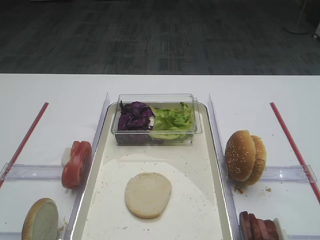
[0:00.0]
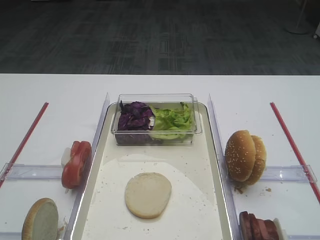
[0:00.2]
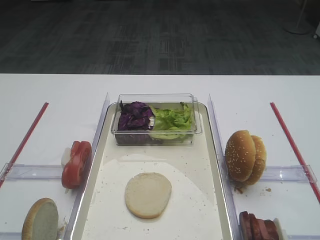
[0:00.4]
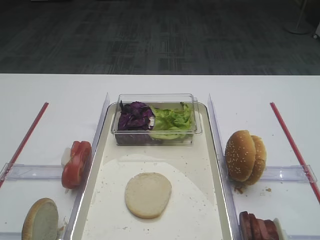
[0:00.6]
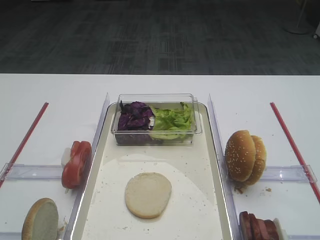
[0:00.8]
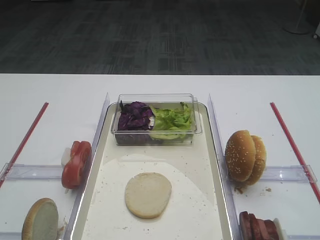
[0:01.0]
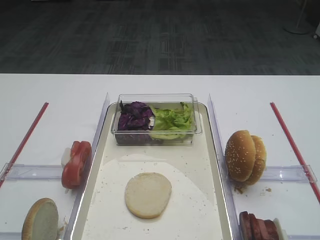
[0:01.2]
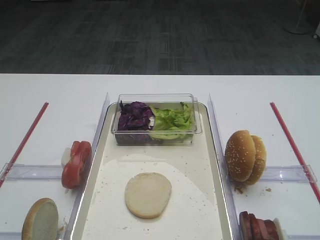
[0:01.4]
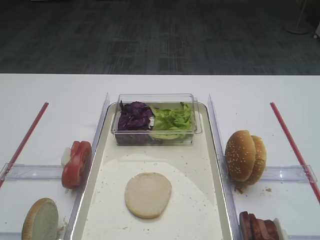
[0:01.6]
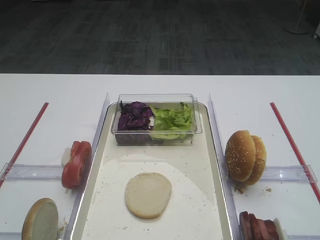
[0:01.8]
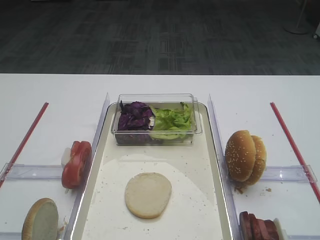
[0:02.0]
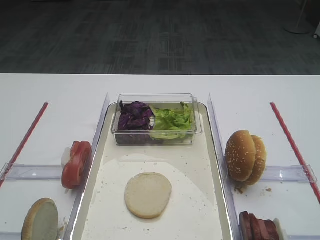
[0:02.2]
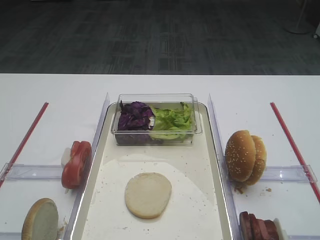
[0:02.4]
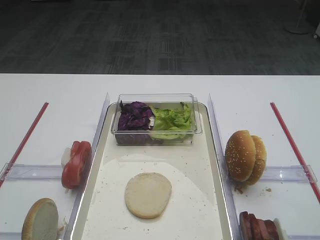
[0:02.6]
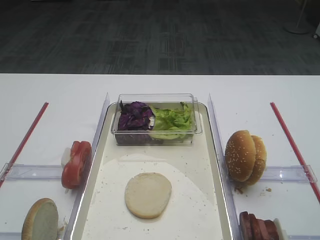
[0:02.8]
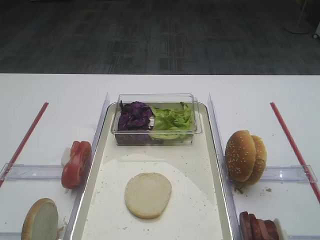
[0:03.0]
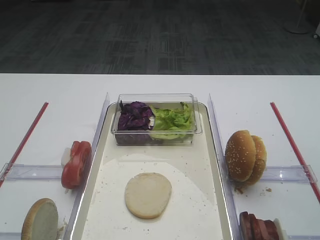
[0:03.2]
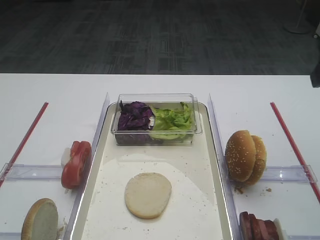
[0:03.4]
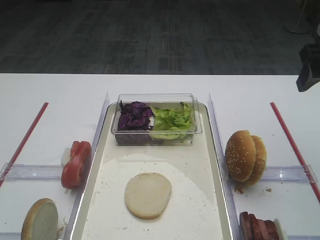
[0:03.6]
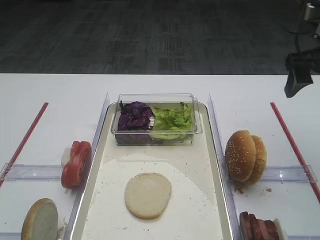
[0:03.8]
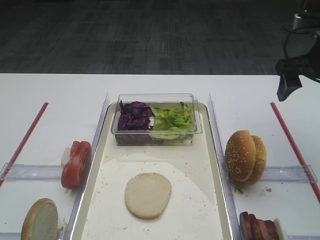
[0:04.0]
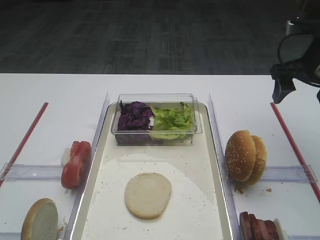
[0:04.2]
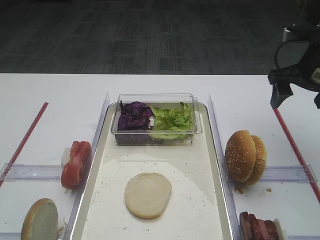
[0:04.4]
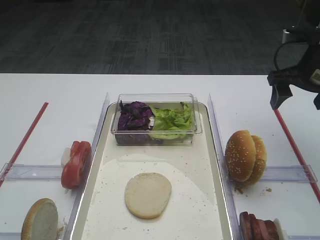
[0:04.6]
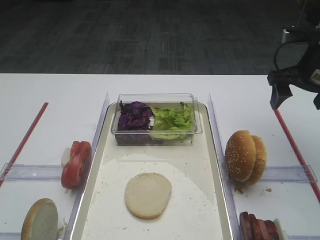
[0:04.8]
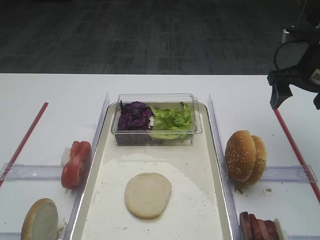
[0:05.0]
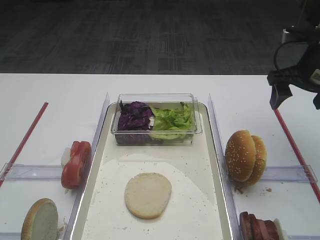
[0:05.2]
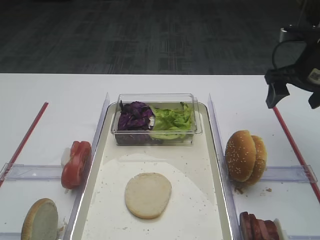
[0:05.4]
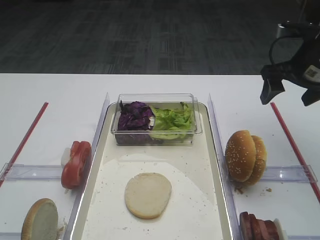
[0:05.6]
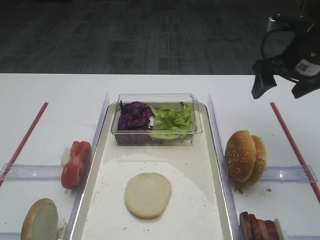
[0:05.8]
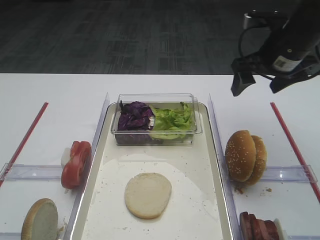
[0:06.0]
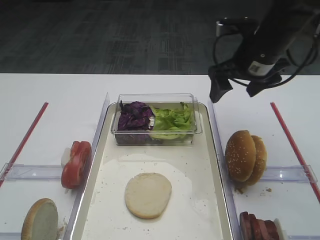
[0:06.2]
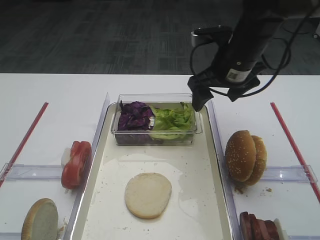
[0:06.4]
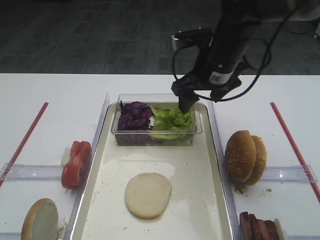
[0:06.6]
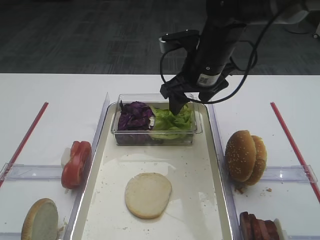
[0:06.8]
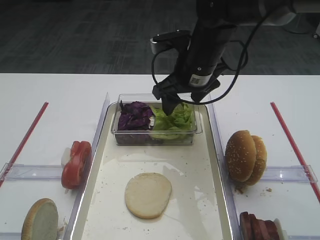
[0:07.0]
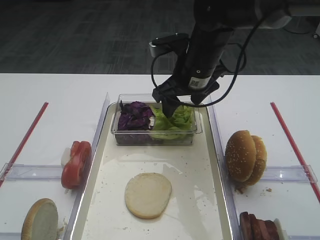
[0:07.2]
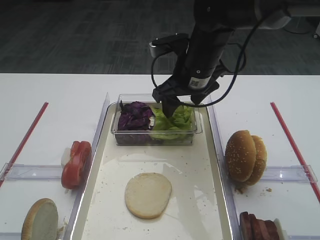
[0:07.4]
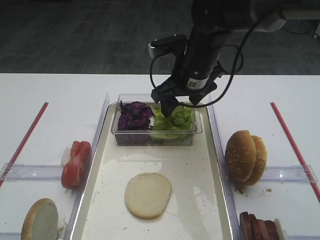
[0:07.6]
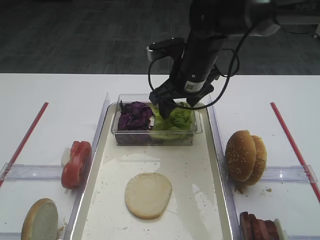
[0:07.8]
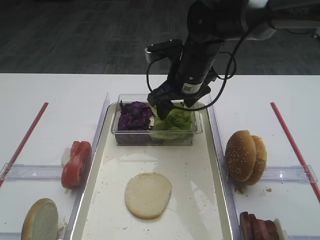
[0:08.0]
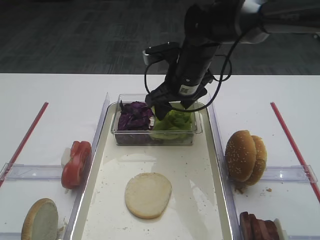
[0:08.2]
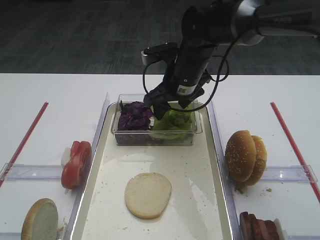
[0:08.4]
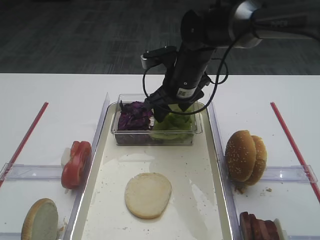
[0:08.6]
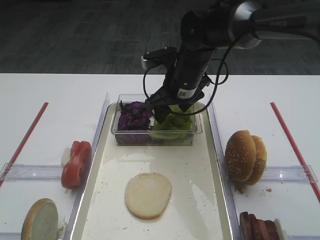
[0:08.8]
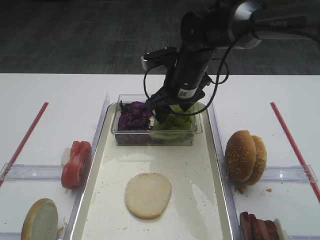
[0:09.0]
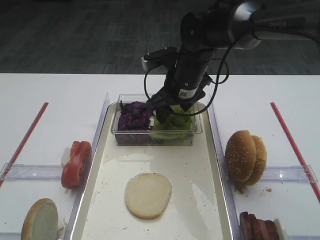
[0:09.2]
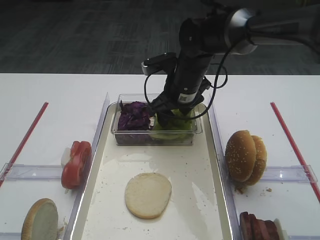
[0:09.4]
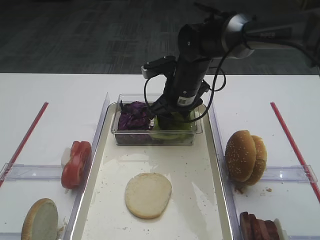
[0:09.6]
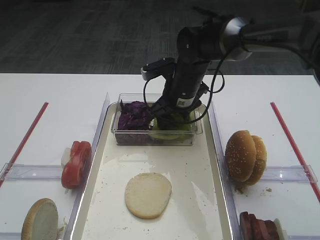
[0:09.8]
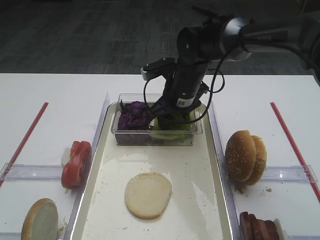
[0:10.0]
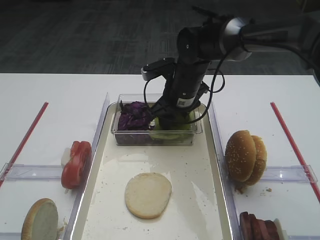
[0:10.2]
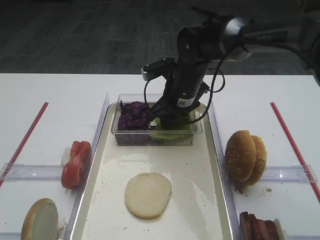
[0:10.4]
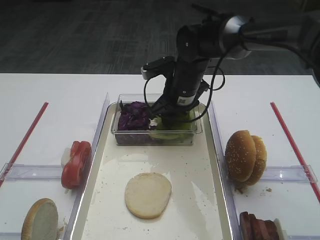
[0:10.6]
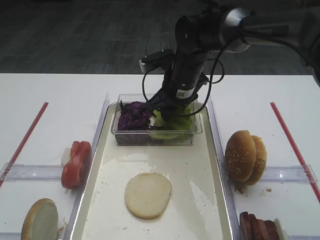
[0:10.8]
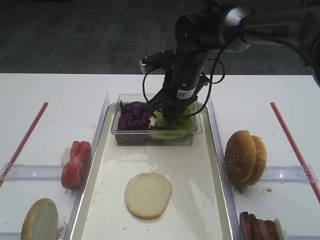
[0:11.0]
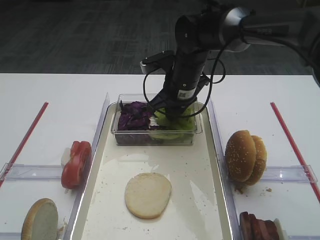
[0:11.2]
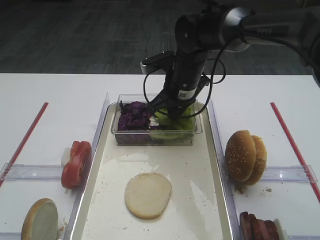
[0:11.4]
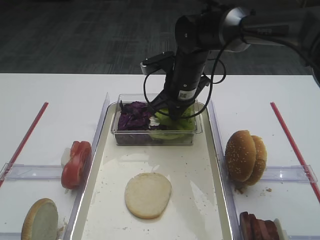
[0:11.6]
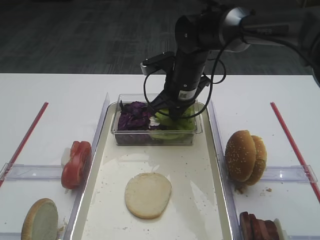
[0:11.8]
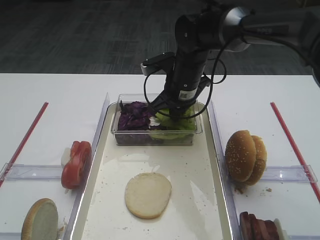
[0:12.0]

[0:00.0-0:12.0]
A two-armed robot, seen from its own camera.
0:03.0 to 0:04.4: The right gripper travels forward and downward by some 25 cm.
0:04.4 to 0:06.0: The right gripper shifts by approximately 5 cm.
0:06.0 to 0:07.6: The right gripper travels to the left by about 15 cm.
0:07.6 to 0:09.0: There are only small adjustments of the grippers.
0:09.0 to 0:10.4: There are only small adjustments of the grippers.
0:10.4 to 0:12.0: The right gripper closes its fingers.

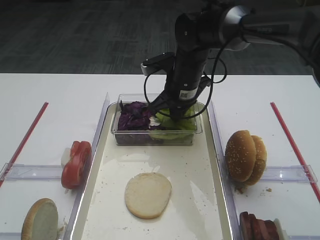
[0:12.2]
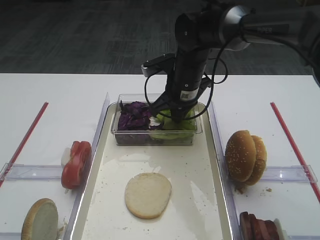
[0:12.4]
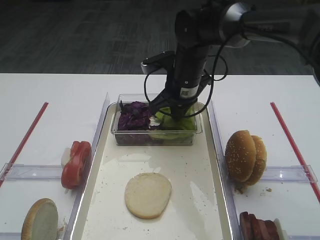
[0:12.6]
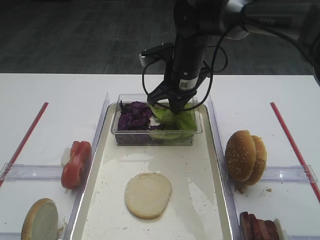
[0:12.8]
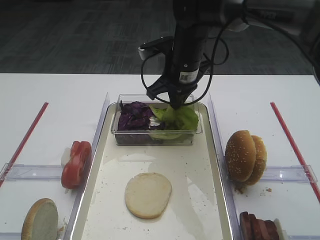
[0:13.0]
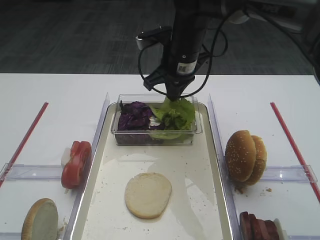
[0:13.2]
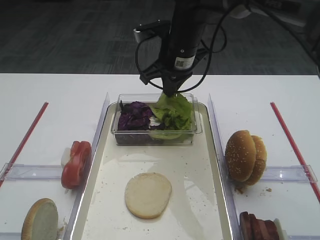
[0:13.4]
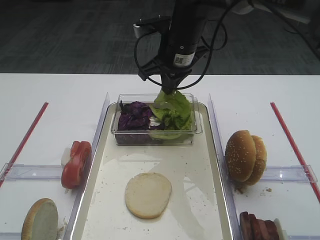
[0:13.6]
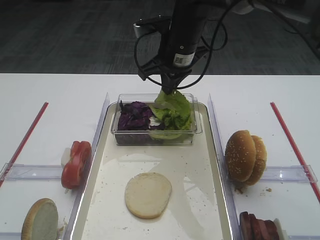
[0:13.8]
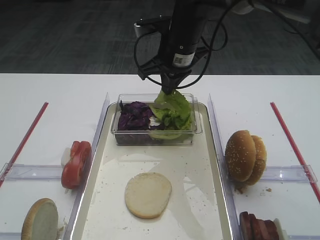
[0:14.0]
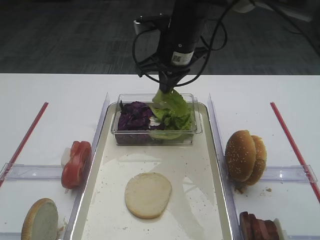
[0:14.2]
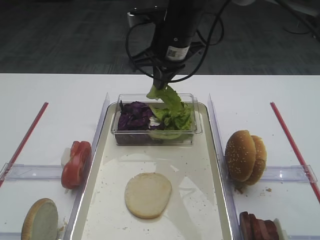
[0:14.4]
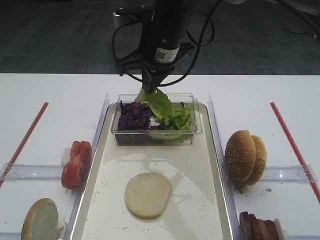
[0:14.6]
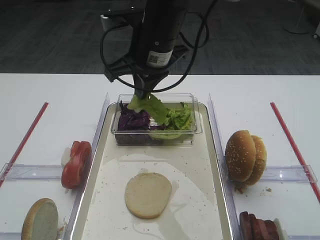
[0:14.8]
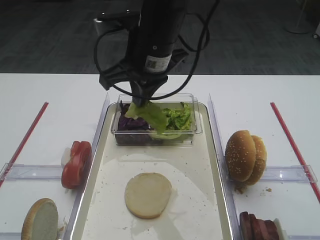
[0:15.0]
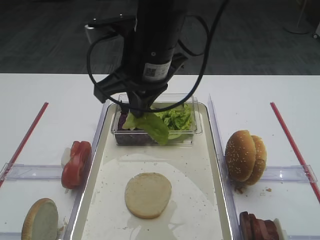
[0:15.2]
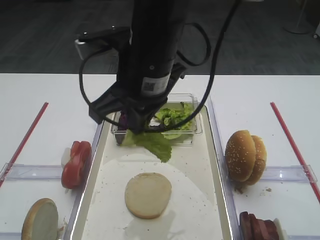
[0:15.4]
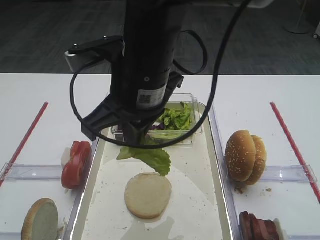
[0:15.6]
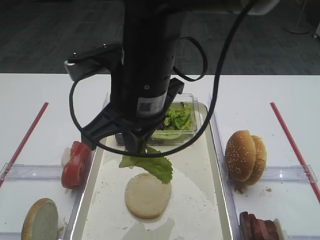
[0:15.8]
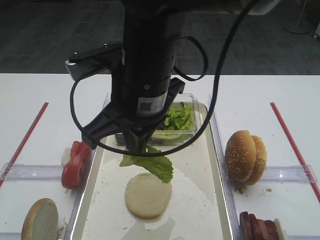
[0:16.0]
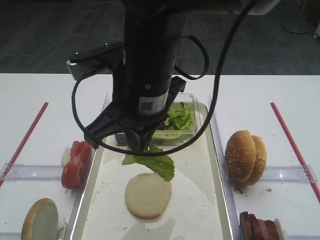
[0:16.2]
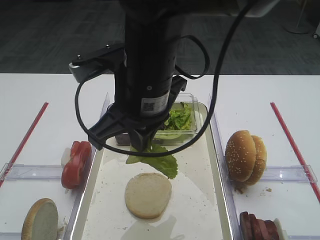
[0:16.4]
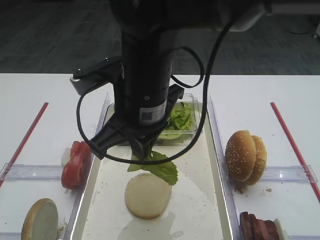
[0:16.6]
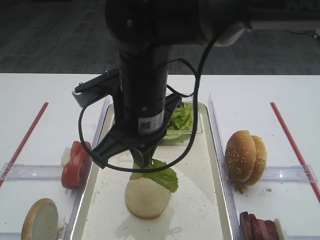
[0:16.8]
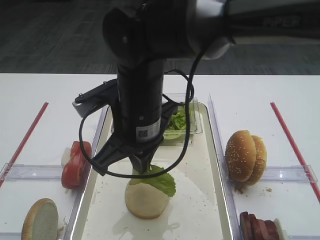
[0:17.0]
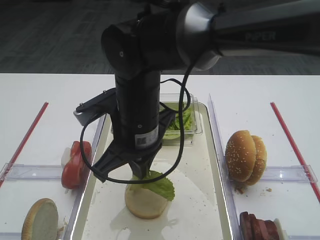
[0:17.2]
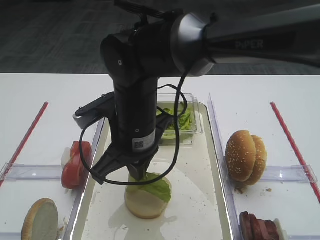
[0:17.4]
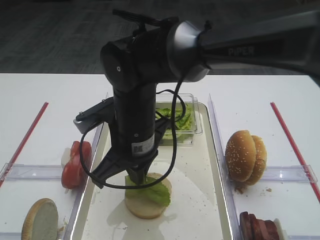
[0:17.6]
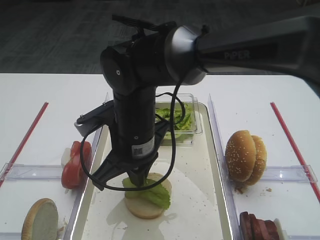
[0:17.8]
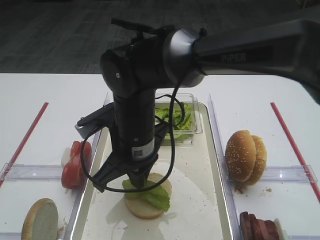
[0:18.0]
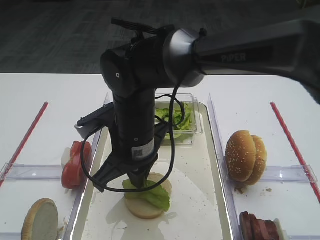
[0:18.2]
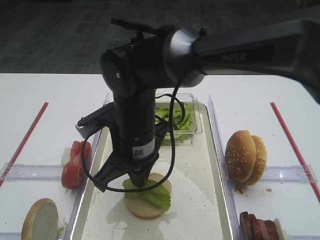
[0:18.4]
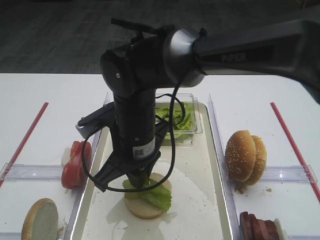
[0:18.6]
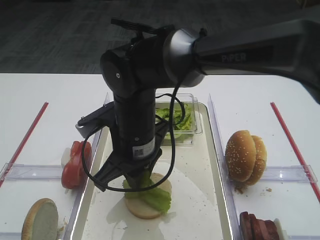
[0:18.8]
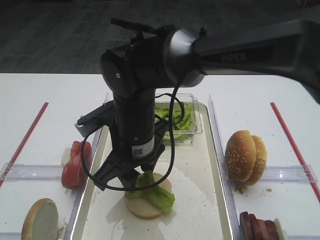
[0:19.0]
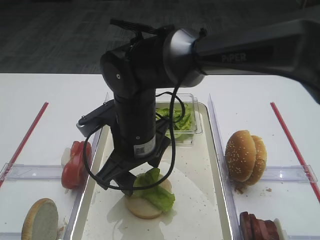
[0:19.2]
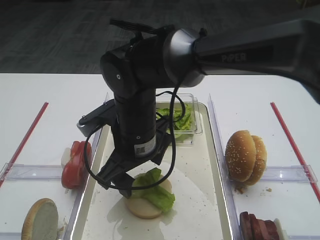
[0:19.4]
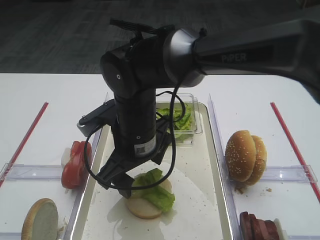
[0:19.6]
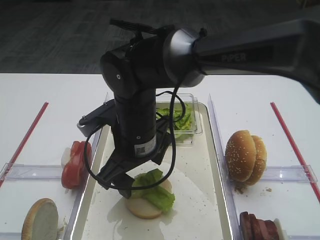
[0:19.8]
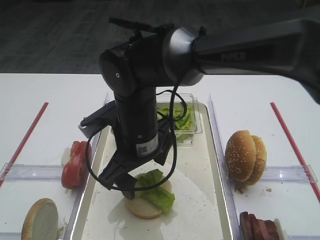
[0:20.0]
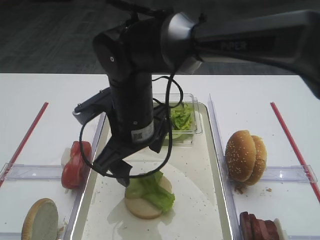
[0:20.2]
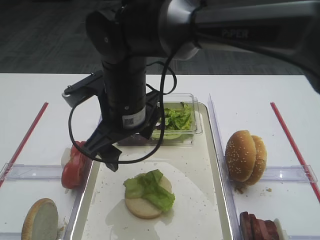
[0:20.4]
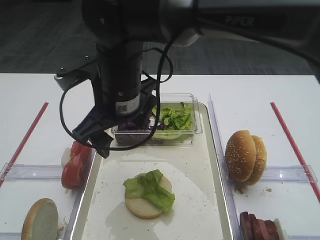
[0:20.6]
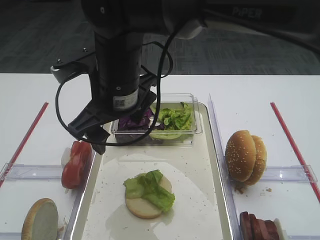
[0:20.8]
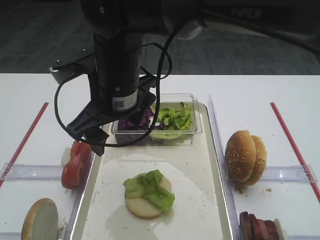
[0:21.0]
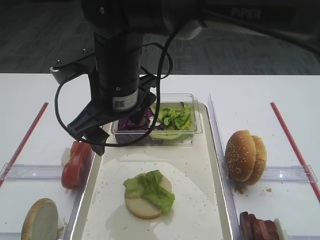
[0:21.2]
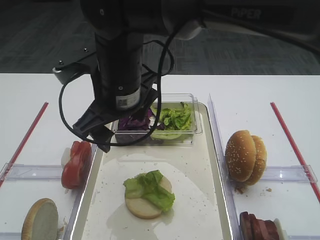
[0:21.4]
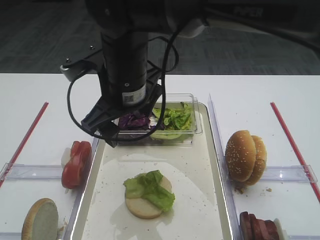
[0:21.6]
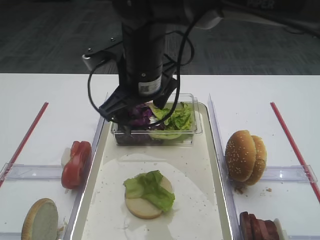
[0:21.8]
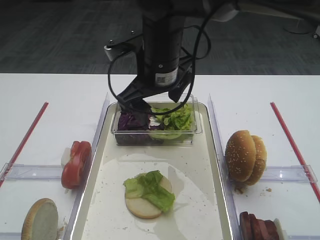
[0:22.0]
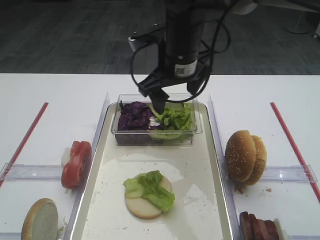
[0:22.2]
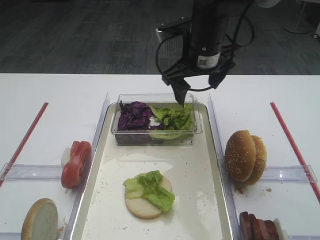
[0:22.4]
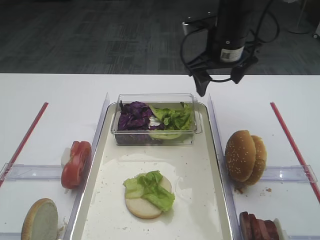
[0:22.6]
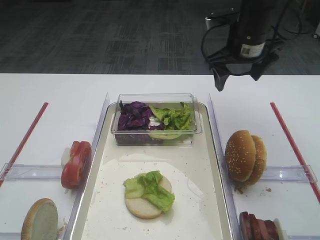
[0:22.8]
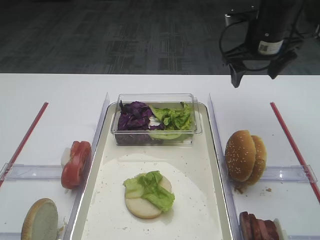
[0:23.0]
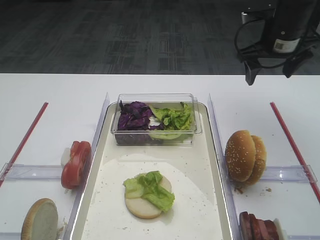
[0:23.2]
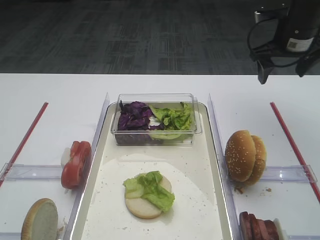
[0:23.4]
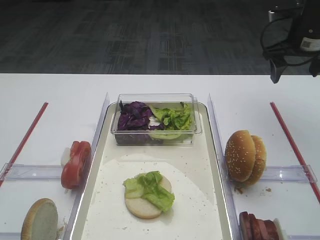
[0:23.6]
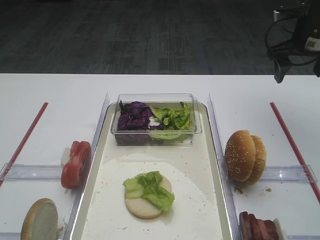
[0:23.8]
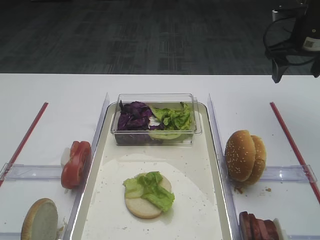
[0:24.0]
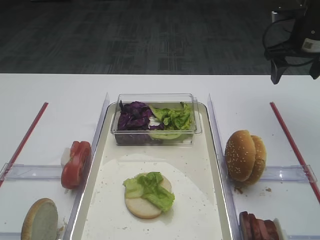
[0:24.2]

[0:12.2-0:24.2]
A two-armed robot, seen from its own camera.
Step, 0:13.8 to 0:19.4: Place the lettuce leaf on the bread slice with the right gripper.
0:12.2 to 0:13.8: The right gripper is displaced upward by roughly 5 cm.
0:13.8 to 0:15.2: The right gripper moves backward, about 10 cm.
0:15.2 to 0:16.6: The right gripper moves backward, some 5 cm.
0:16.6 to 0:18.2: The right gripper goes some 10 cm downward.
0:18.2 to 0:19.8: The right gripper opens.
0:19.8 to 0:21.2: The right gripper is displaced upward by roughly 10 cm.
0:21.2 to 0:22.6: The right gripper is displaced to the right and forward by roughly 20 cm.
0:22.6 to 0:24.2: The right gripper shifts some 20 cm to the right.
